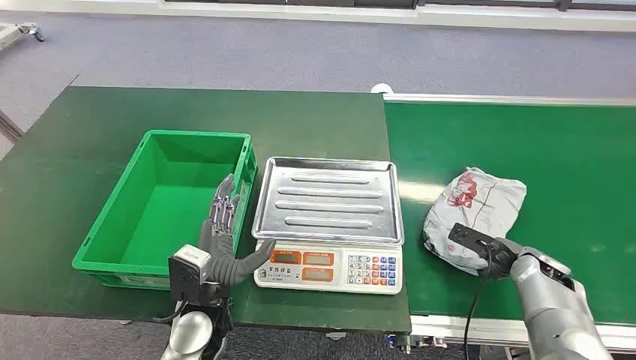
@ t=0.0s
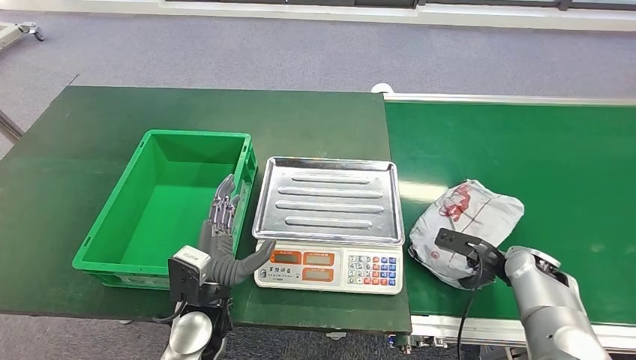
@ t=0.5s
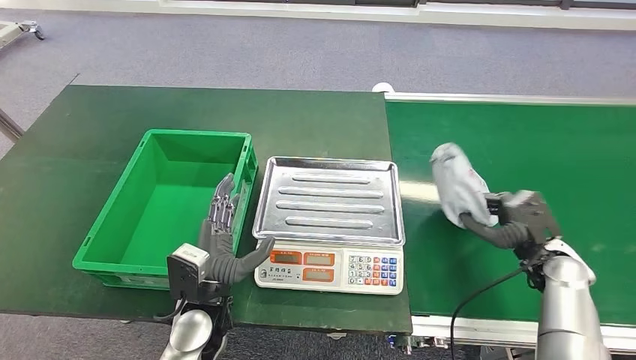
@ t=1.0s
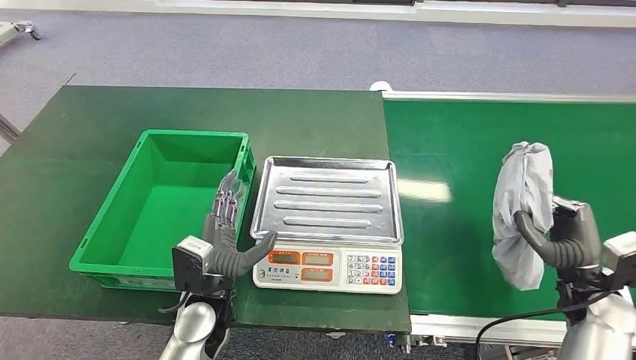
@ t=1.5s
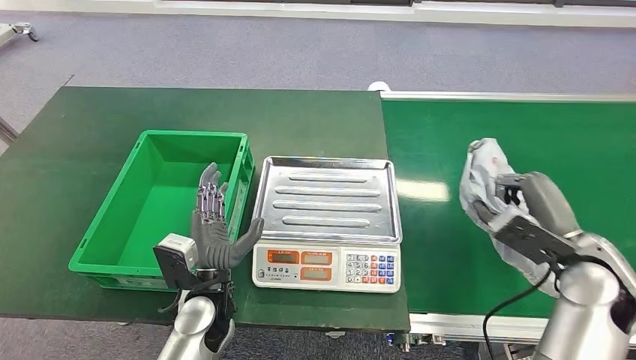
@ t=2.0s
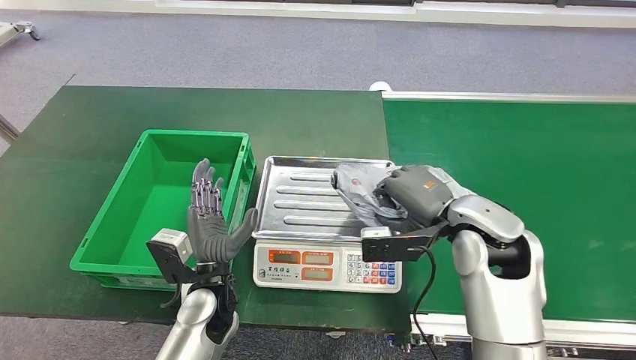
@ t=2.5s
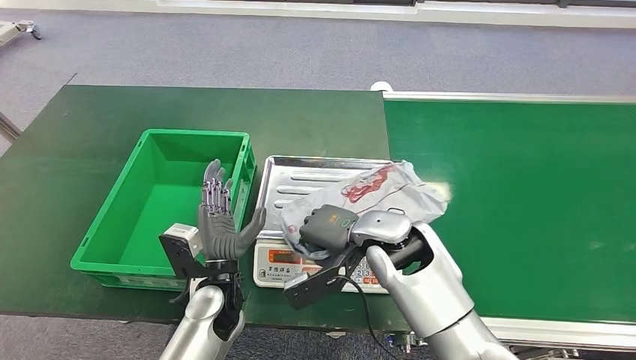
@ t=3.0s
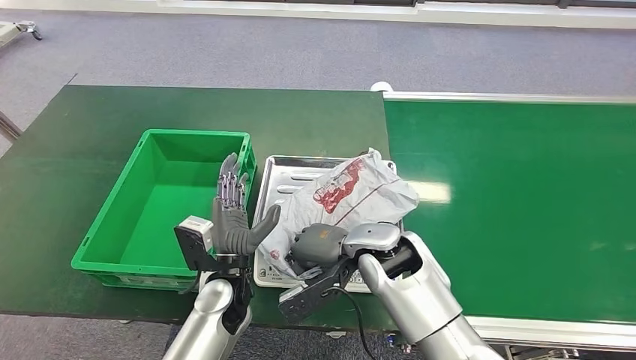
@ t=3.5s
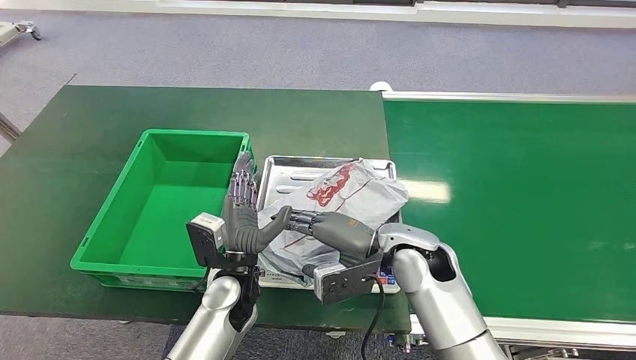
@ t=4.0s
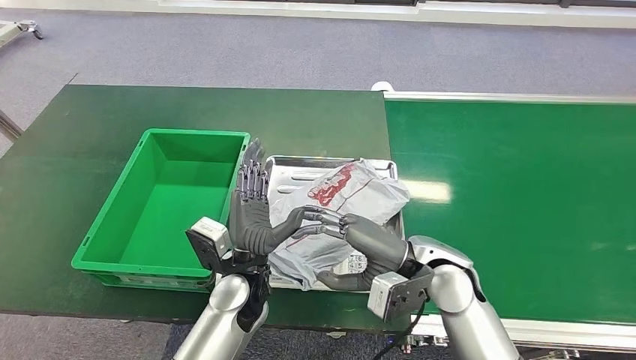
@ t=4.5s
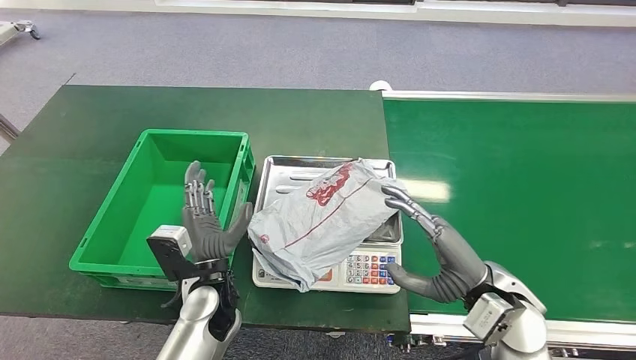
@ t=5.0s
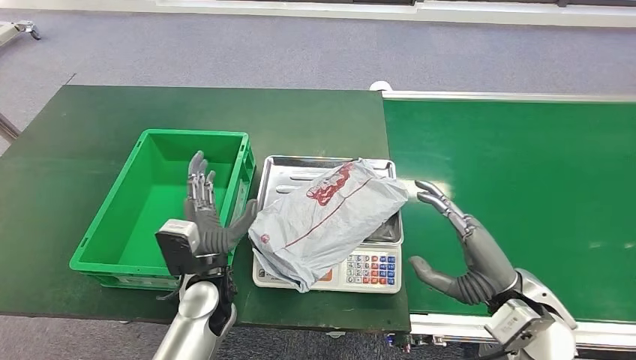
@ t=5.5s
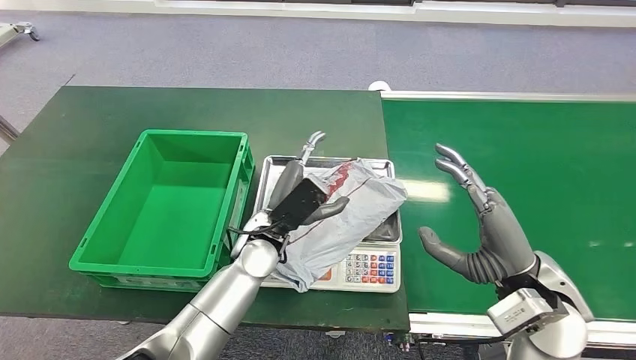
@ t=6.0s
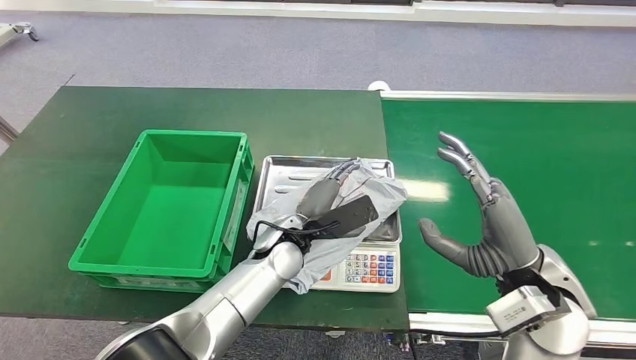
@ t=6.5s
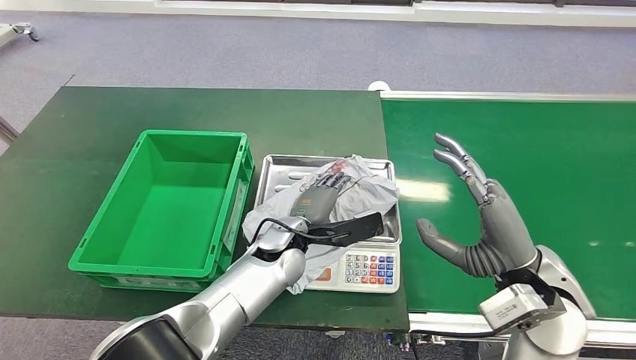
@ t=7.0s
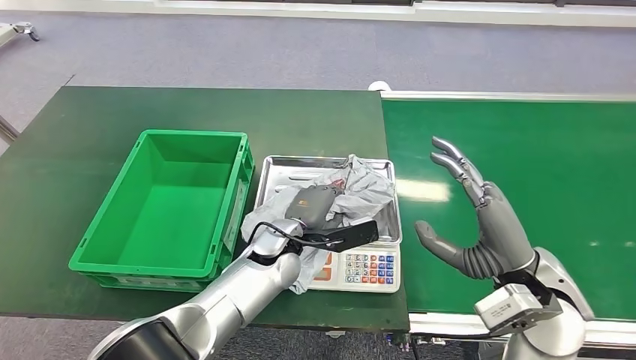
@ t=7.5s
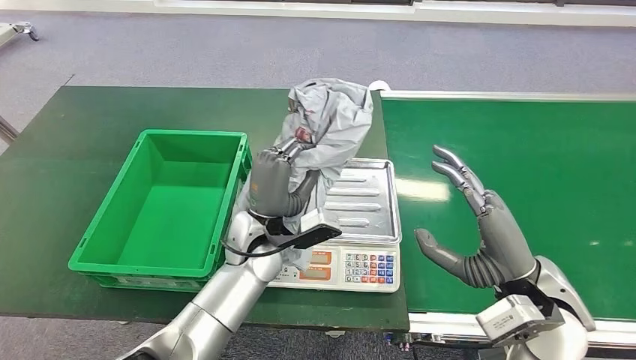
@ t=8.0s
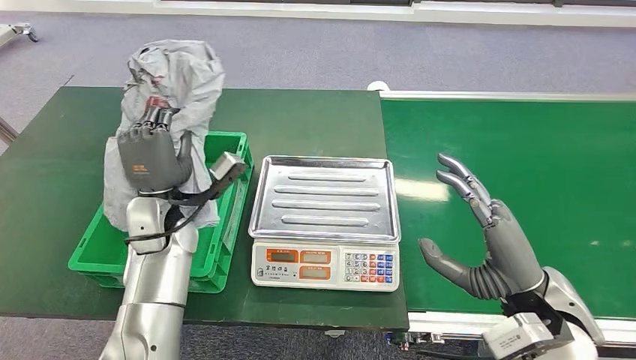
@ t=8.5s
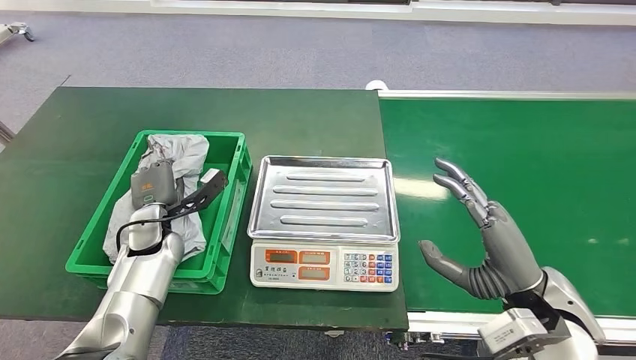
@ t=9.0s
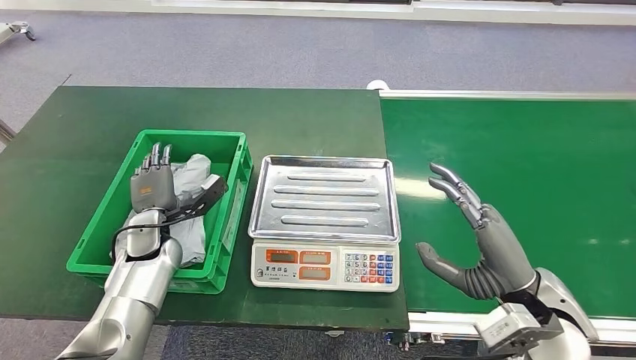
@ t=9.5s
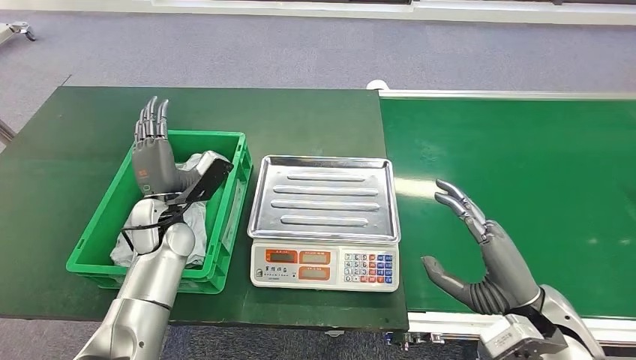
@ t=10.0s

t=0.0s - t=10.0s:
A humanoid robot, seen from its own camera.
Step, t=0.0s - t=1.5s: Pick up the package from the conveyor belt.
Step, t=2.0s - t=4.5s: Place the package onto the inbound machine.
Step, t=5.0s - t=7.5s: Pick up the package from the inbound machine.
Step, t=8.0s - t=10.0s: Place the package into the parcel locker.
t=4.0s - t=6.0s: The right hand goes some 15 cm to the right and backward; the left hand shifts some 5 cm forward.
